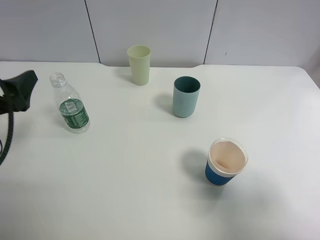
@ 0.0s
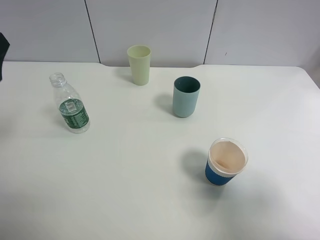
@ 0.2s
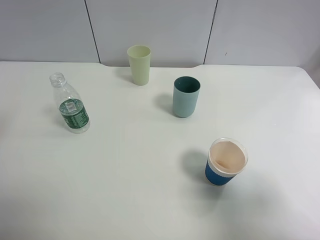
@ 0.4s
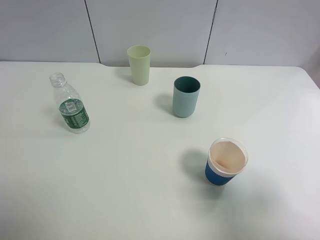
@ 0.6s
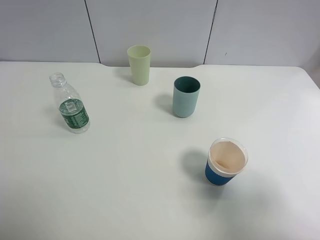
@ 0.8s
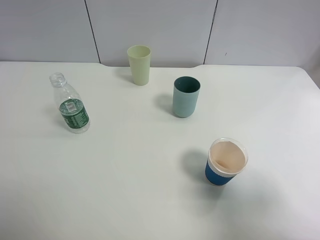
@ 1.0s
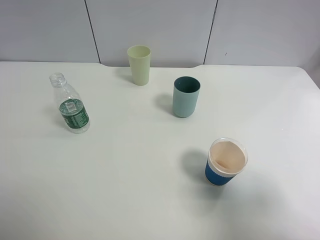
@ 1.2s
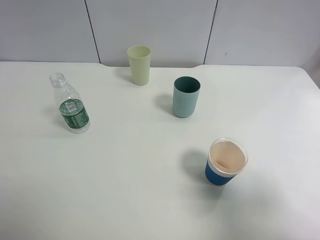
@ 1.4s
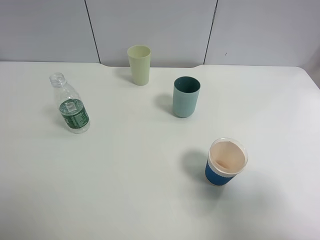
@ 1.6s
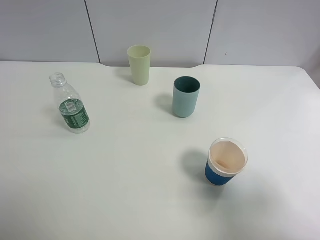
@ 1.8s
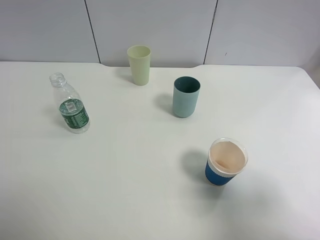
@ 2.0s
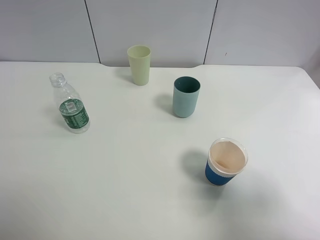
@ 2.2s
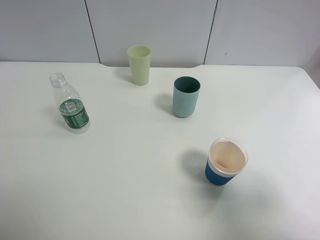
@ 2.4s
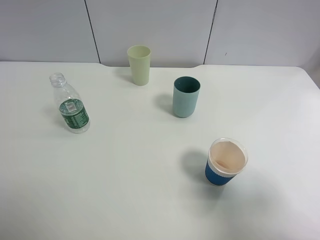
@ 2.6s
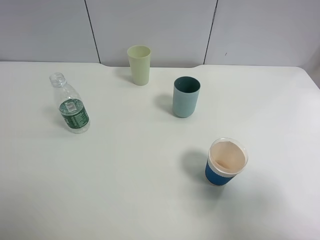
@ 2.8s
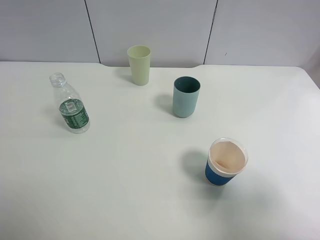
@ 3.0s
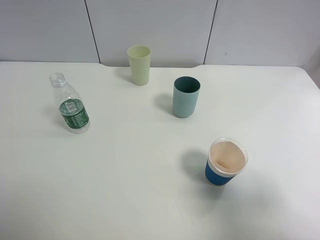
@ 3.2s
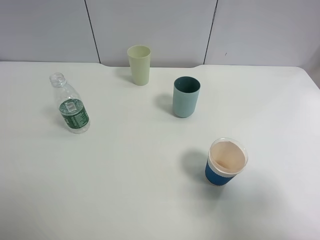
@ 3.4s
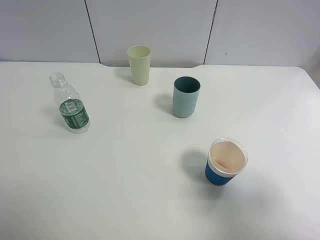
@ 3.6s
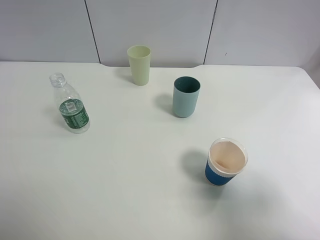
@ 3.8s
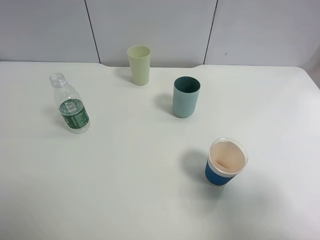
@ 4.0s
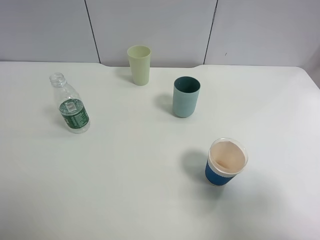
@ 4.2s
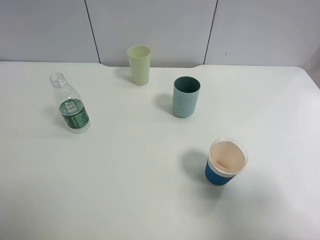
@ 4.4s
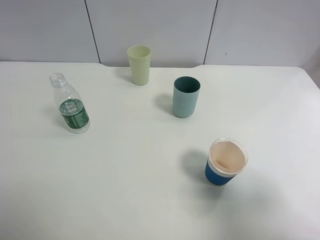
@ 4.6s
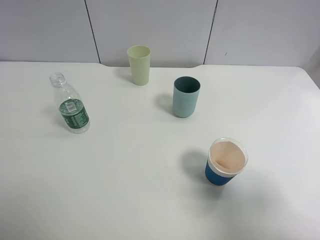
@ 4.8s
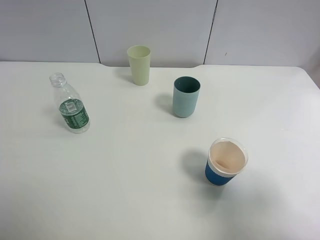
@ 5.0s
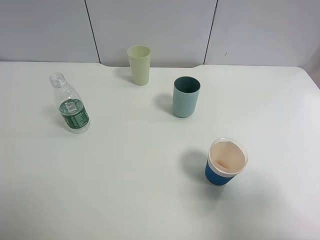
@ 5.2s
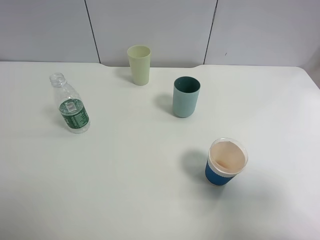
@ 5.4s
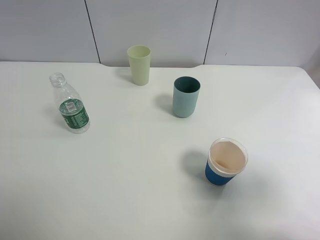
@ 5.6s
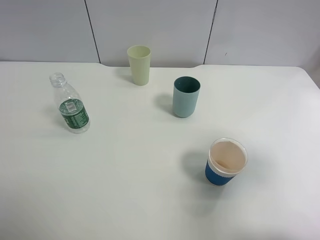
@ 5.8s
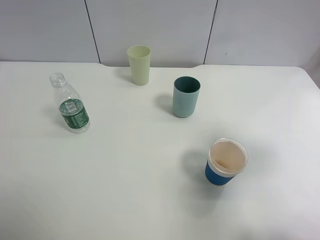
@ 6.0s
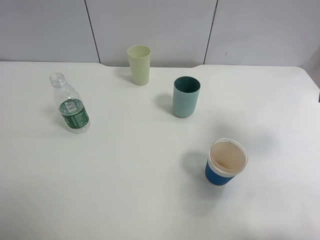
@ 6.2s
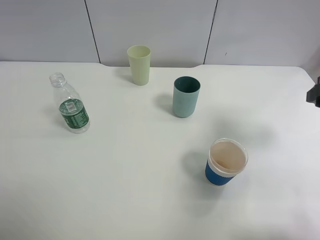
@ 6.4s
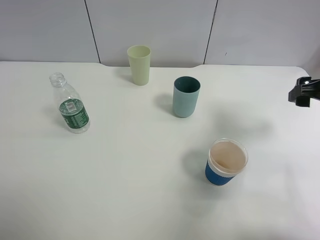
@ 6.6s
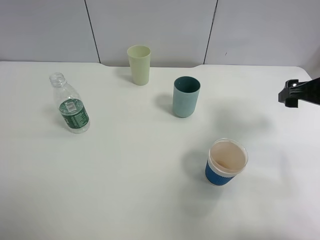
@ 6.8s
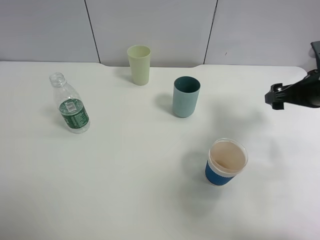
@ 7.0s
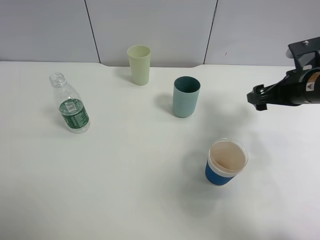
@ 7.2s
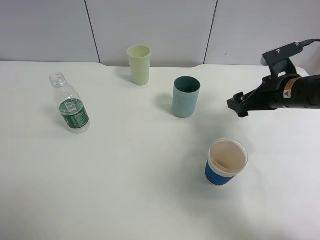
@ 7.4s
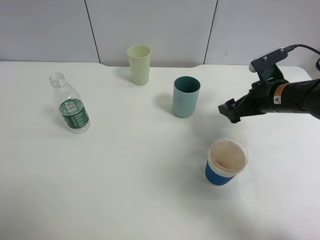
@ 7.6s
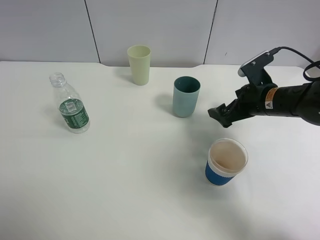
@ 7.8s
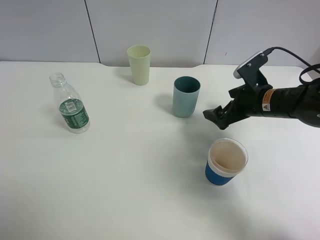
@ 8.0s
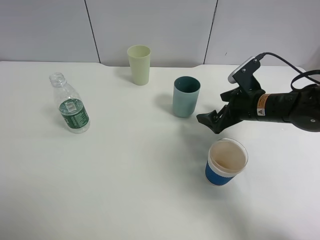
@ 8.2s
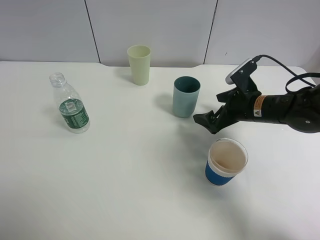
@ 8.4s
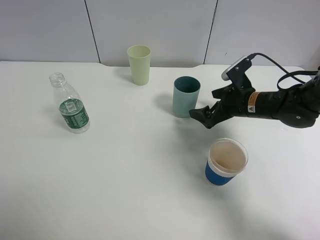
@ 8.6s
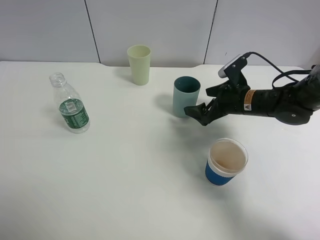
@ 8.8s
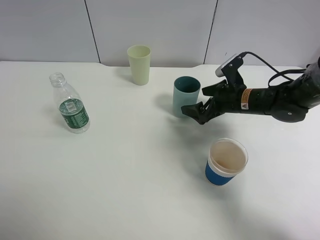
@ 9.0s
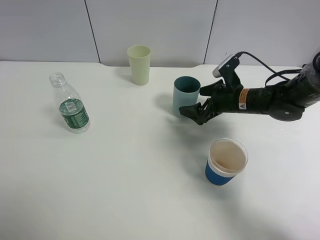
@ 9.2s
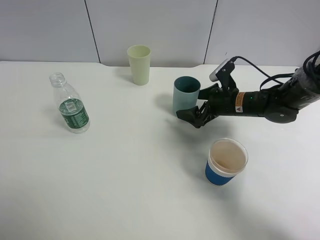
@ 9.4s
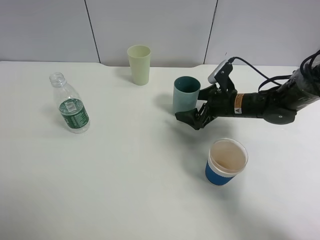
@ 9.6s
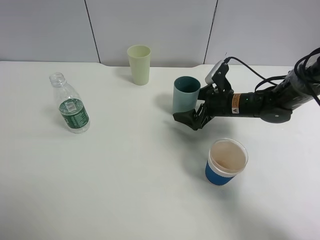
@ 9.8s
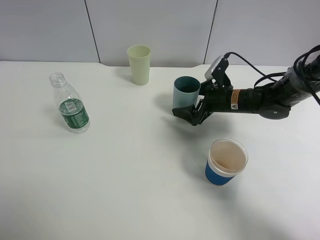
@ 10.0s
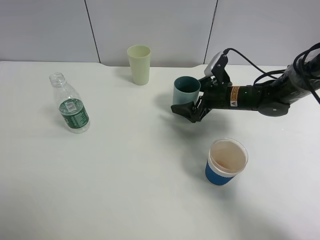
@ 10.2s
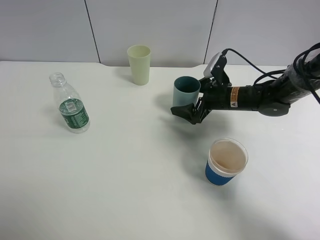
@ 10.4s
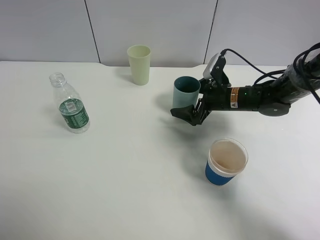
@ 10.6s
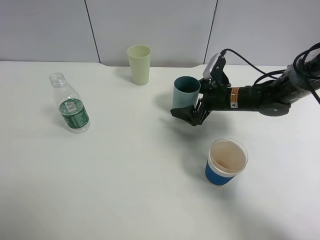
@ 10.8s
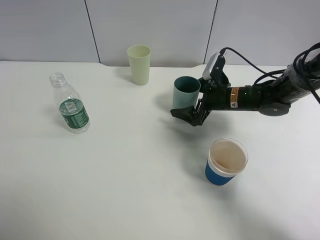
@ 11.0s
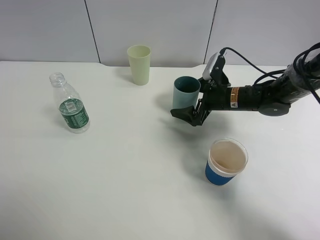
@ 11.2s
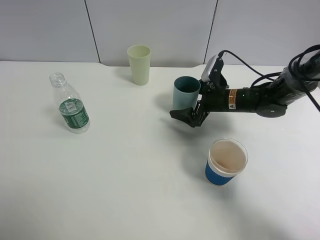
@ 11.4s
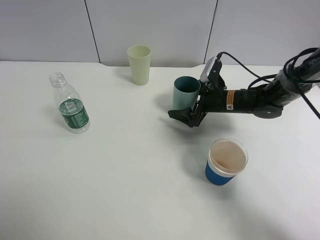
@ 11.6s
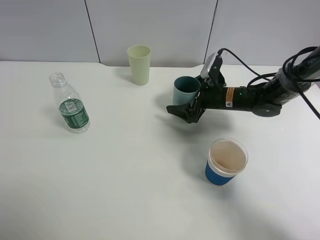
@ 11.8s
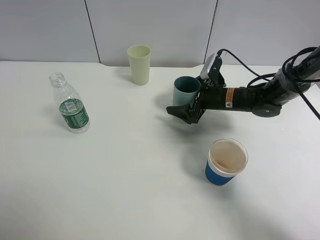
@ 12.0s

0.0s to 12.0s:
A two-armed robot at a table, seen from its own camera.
Task of the whole recording: use a clamp to hold the bottle of the drink, pour the beverage into a random cup, then clamp the cup containing the drink and pour the drink into another random cup.
0.0s to 1.6s: The left gripper goes roughly 20 cm backward and upward.
3.0s to 4.4s: Both grippers stay about where they are.
4.4s to 6.0s: The right gripper moves forward, approximately 15 cm.
6.0s to 7.6s: The right gripper is displaced forward, downward and to the left by roughly 25 cm.
7.6s to 9.0s: The right gripper changes place by some 10 cm.
9.0s to 12.0s: There are only small adjustments of the grippers.

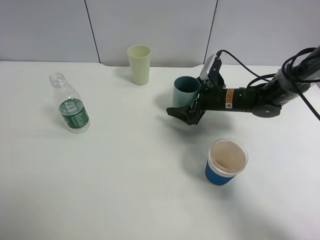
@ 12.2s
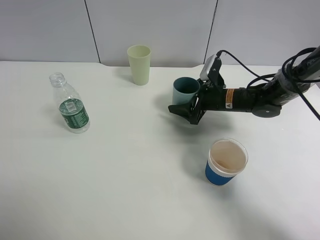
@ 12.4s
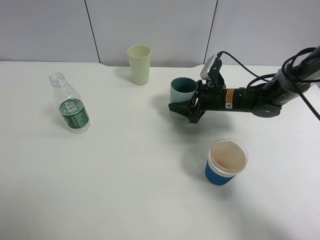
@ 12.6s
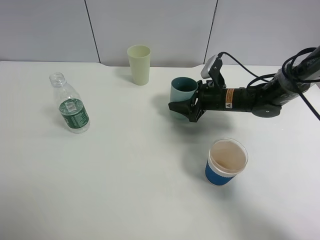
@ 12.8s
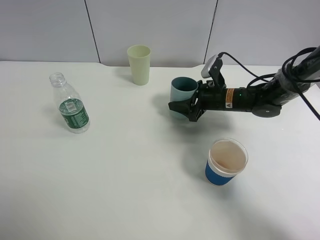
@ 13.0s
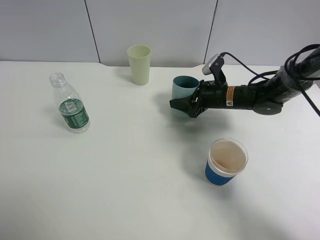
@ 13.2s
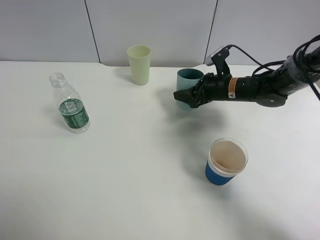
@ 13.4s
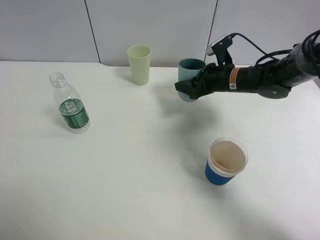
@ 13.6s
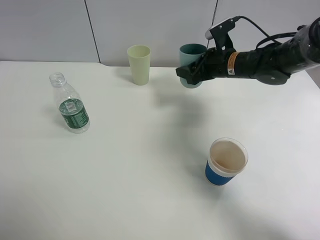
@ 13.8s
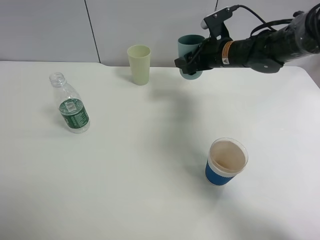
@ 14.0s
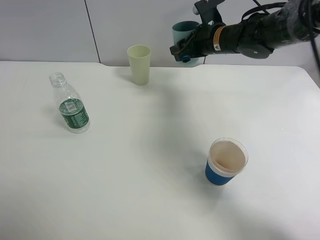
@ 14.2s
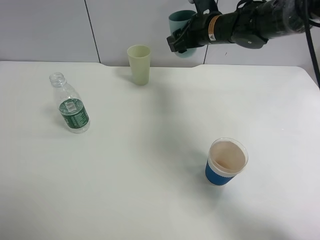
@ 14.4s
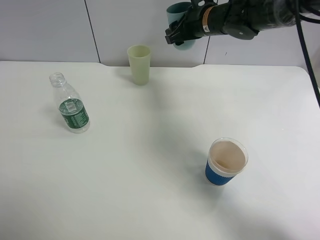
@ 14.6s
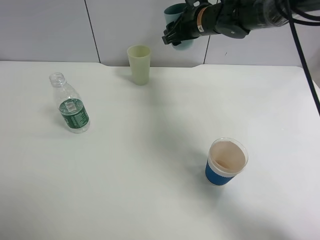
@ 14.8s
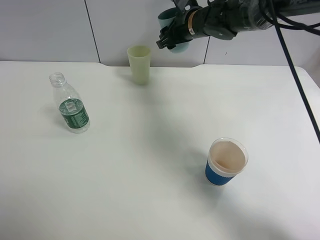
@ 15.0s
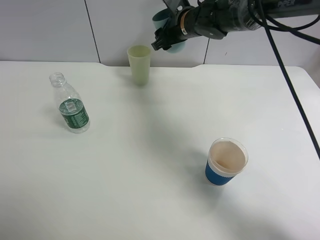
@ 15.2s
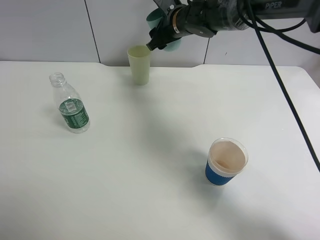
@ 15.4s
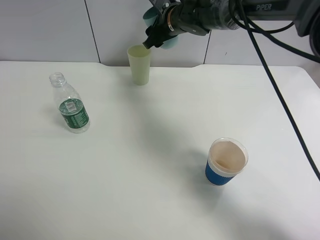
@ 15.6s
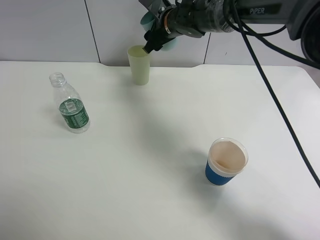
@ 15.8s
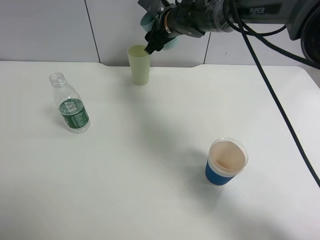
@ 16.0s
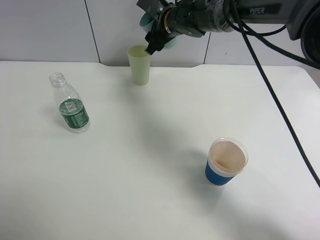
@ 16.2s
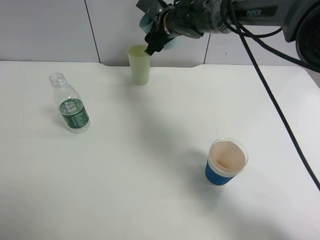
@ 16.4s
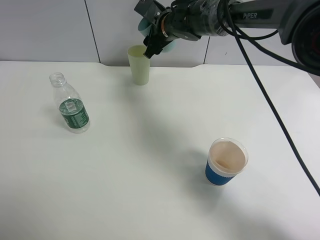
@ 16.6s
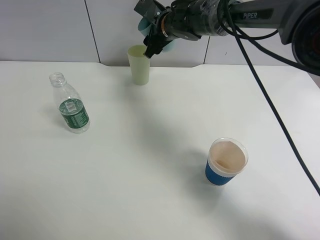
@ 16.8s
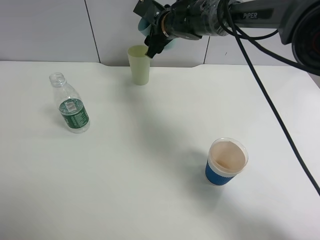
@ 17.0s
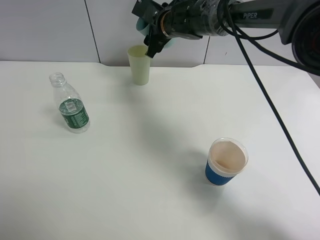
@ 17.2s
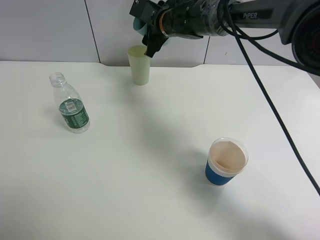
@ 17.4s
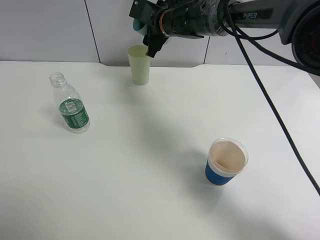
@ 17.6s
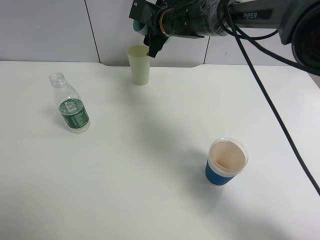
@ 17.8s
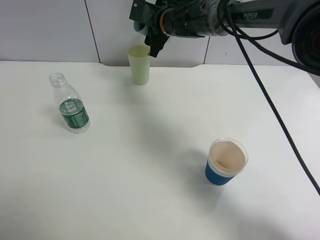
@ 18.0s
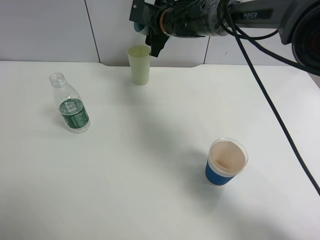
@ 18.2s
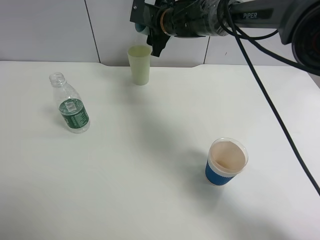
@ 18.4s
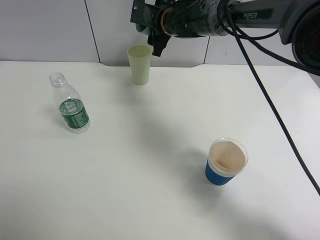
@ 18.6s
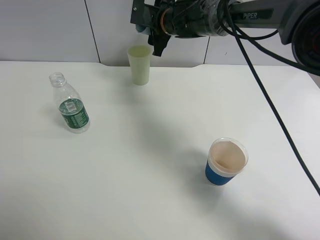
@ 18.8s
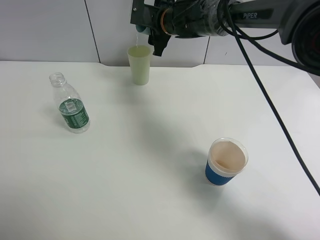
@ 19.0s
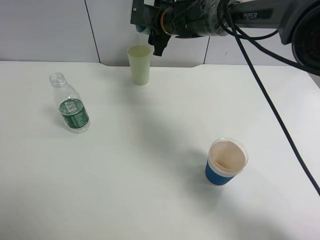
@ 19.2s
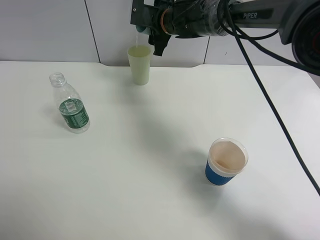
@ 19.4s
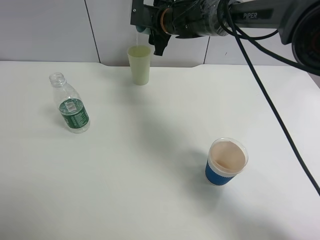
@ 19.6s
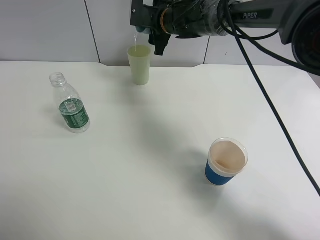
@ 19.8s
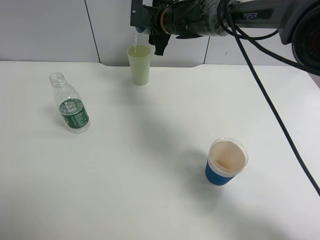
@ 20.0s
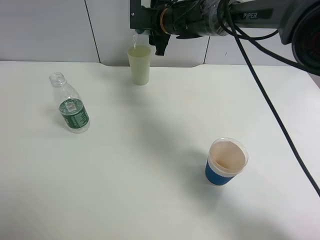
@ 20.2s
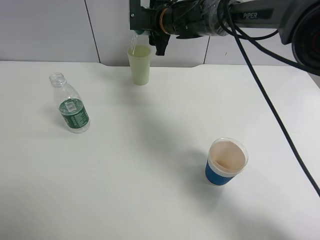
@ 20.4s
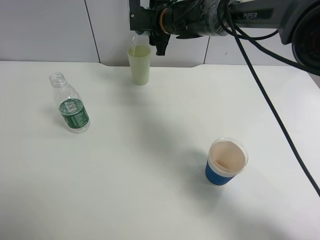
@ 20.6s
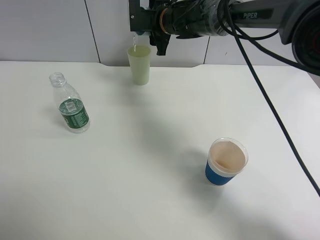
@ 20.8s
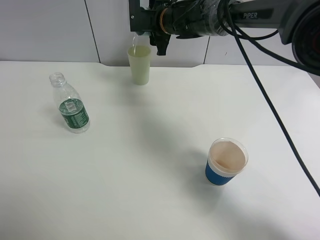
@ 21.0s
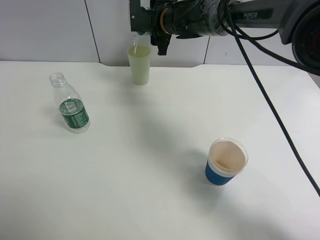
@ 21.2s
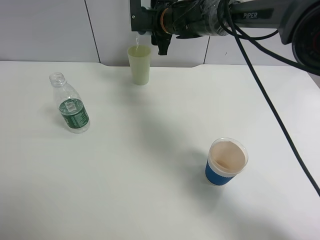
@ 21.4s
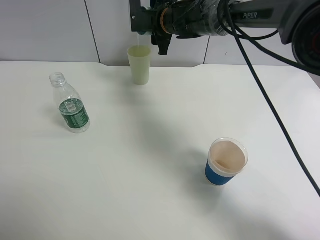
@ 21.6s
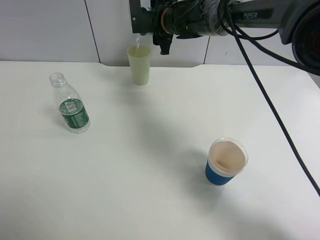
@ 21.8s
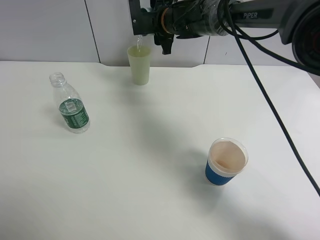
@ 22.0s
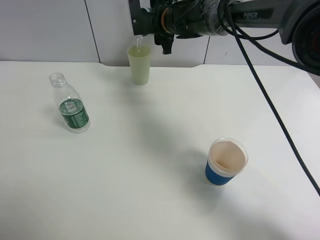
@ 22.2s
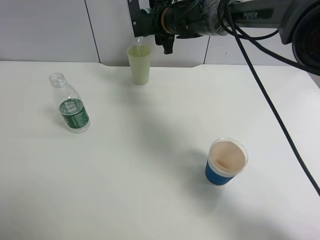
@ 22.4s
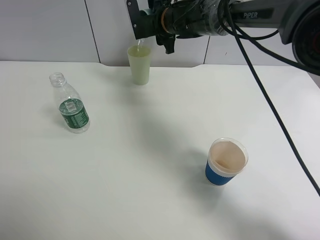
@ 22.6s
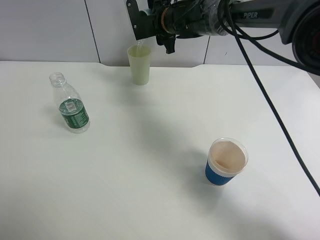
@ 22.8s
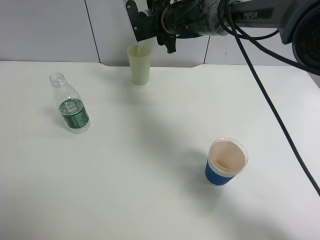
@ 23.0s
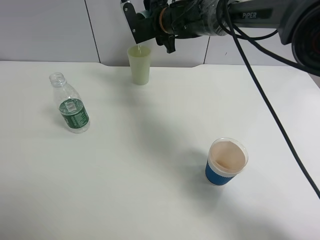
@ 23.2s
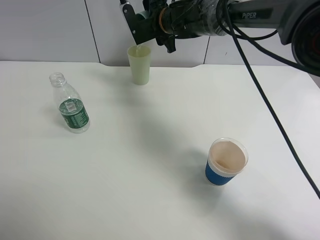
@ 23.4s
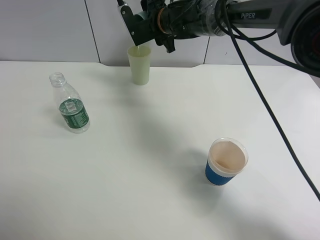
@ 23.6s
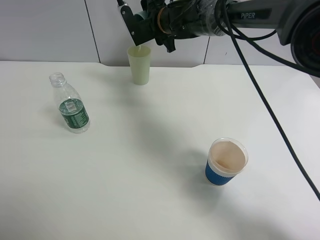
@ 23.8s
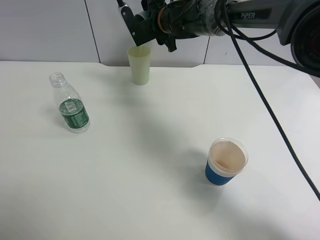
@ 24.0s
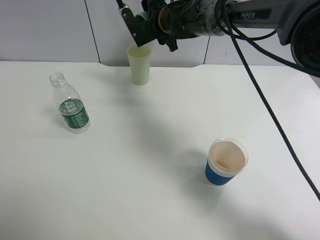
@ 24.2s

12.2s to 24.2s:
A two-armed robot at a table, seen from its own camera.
Task of the whole recording: use a clamp to hold the bottle of the drink, pour the beverage into a random cup, then clamp the cup containing the drink and pour the drink into another random cup.
12.2s to 13.8s: The right gripper heads upward, covering roughly 10 cm, and closes its fingers.
13.8s to 15.2s: The right gripper goes approximately 15 cm to the left, forward and upward.
15.2s to 16.6s: The grippers move only a little.
19.8s to 21.2s: The grippers make only small movements.
21.2s to 22.6s: The grippers make only small movements.
22.6s to 24.2s: There are only small adjustments of the grippers.
